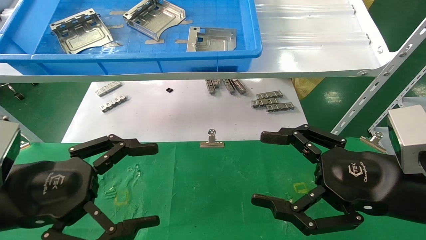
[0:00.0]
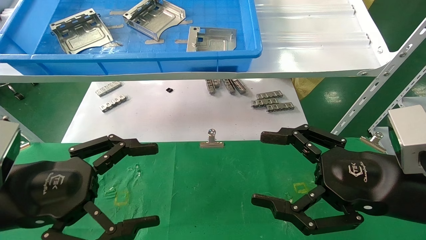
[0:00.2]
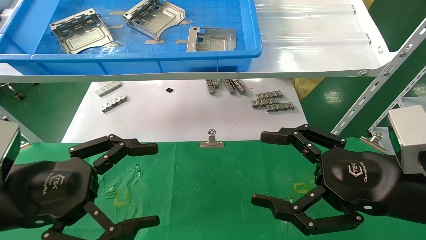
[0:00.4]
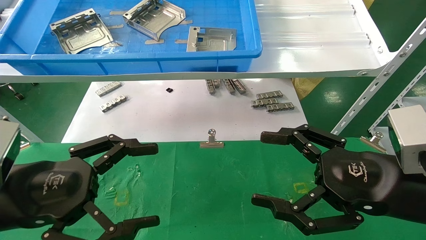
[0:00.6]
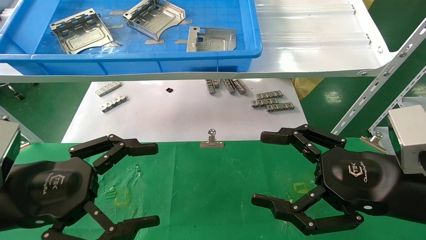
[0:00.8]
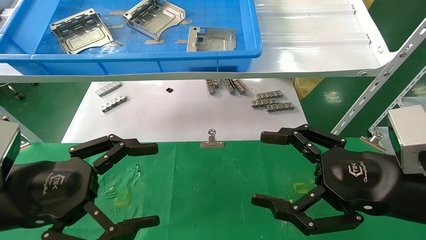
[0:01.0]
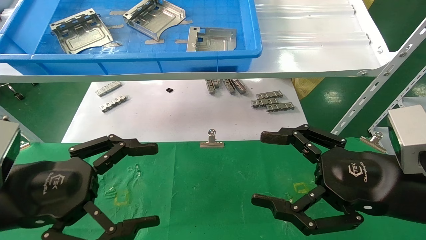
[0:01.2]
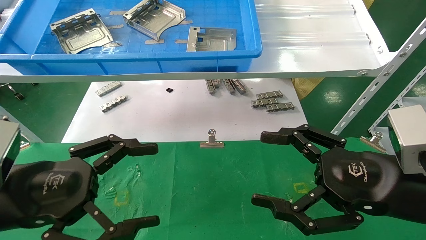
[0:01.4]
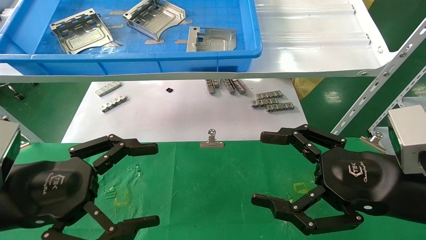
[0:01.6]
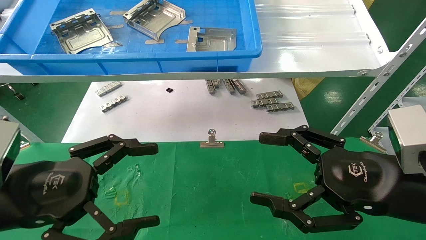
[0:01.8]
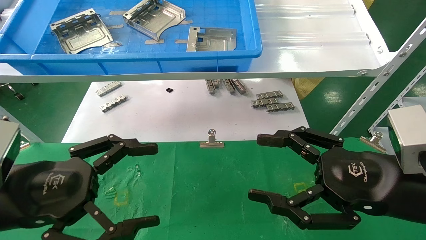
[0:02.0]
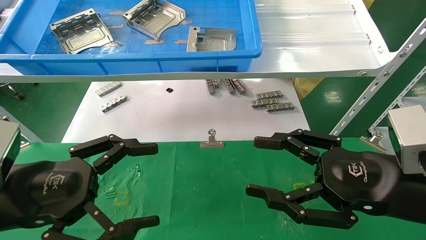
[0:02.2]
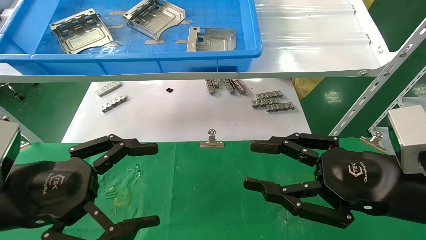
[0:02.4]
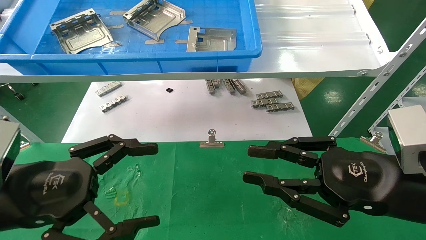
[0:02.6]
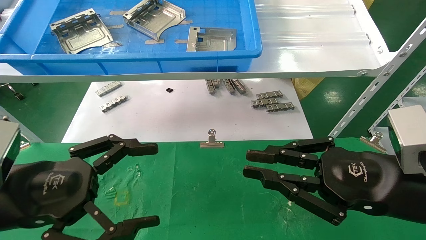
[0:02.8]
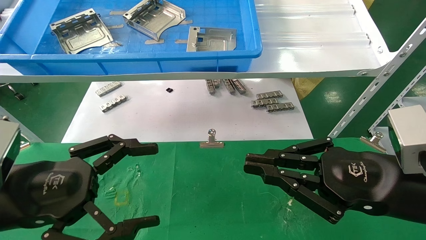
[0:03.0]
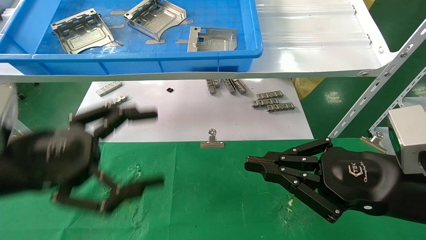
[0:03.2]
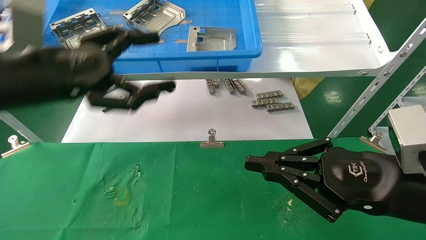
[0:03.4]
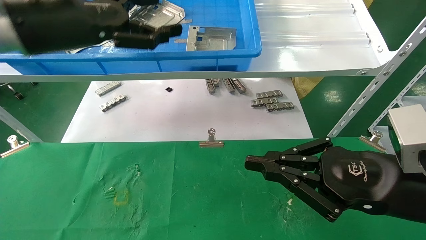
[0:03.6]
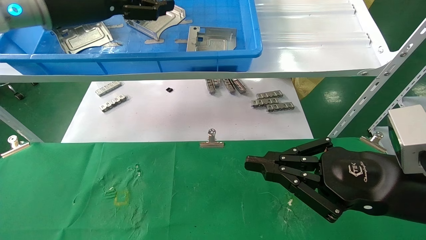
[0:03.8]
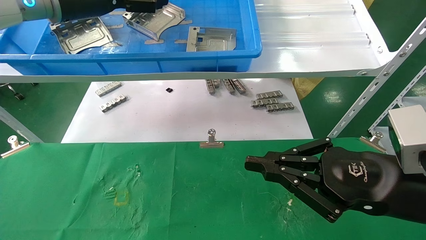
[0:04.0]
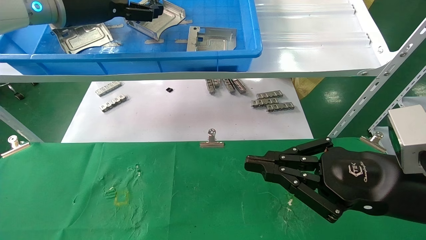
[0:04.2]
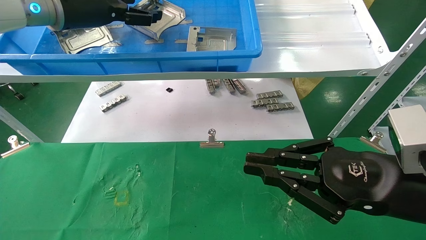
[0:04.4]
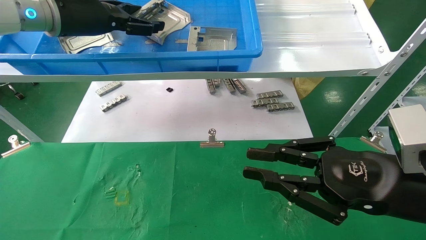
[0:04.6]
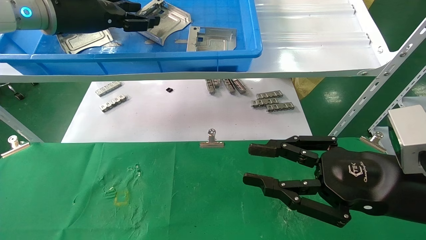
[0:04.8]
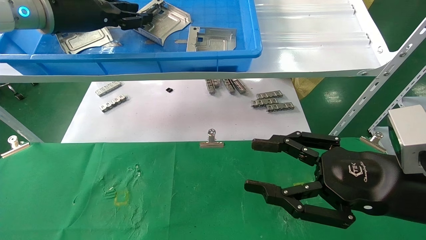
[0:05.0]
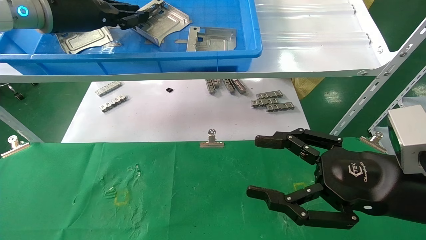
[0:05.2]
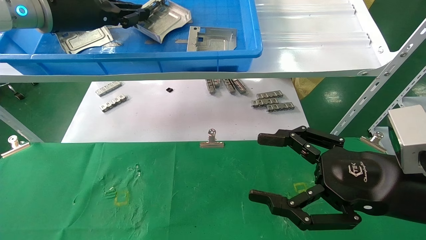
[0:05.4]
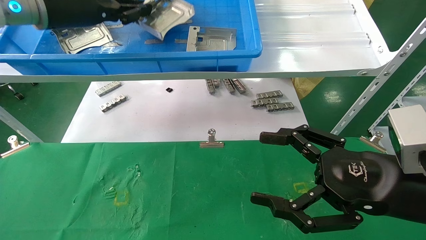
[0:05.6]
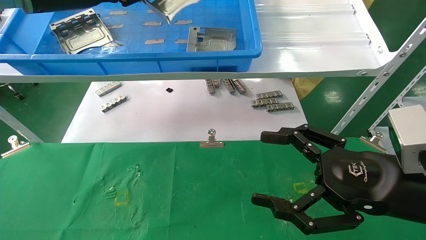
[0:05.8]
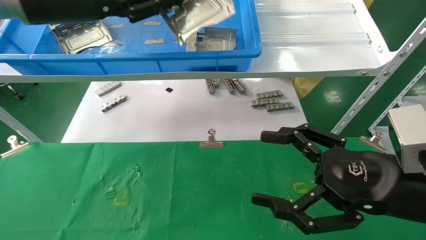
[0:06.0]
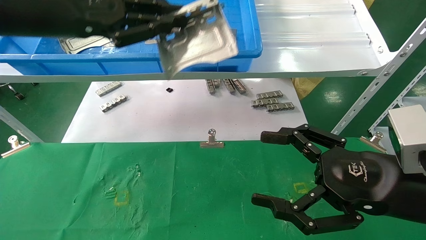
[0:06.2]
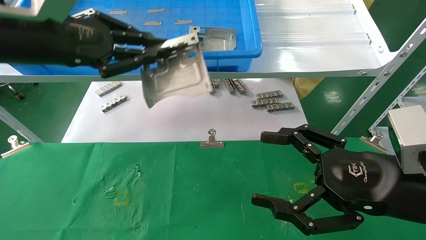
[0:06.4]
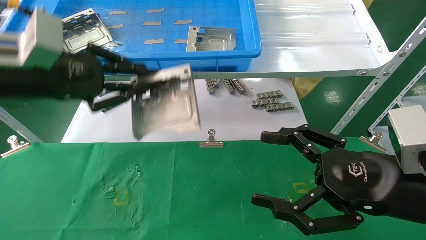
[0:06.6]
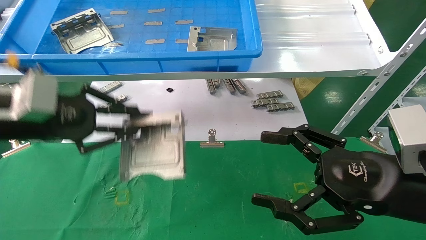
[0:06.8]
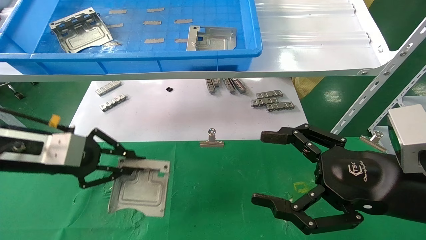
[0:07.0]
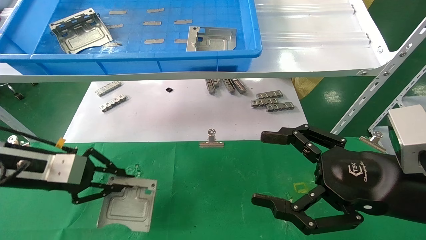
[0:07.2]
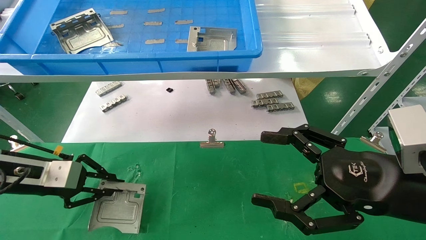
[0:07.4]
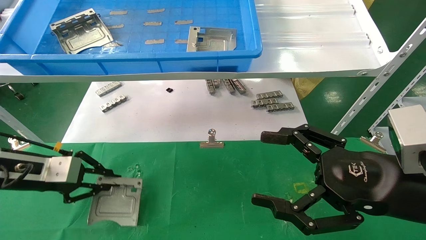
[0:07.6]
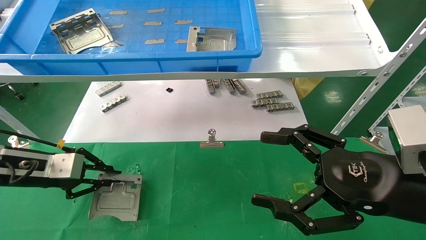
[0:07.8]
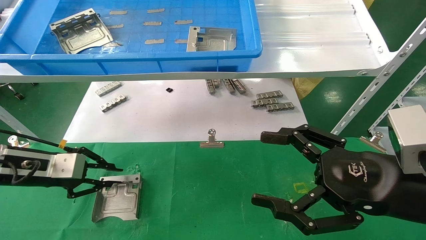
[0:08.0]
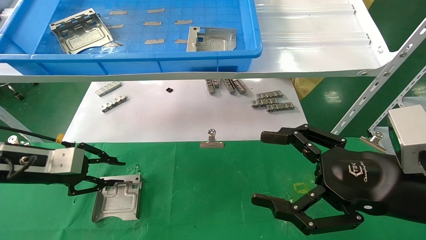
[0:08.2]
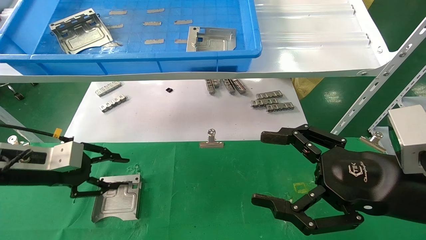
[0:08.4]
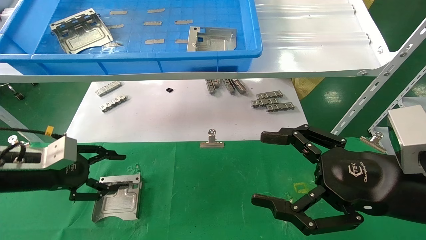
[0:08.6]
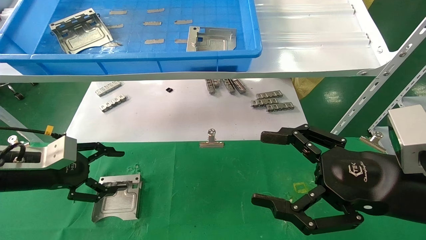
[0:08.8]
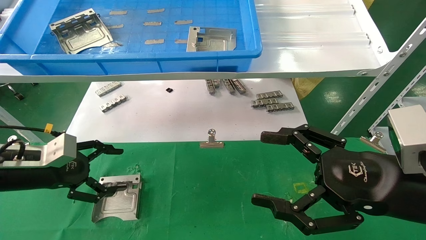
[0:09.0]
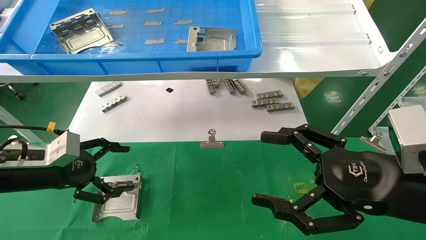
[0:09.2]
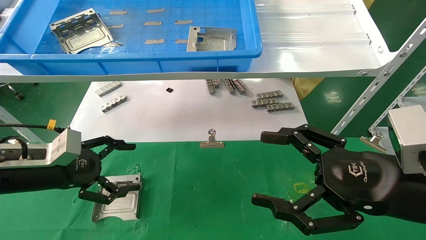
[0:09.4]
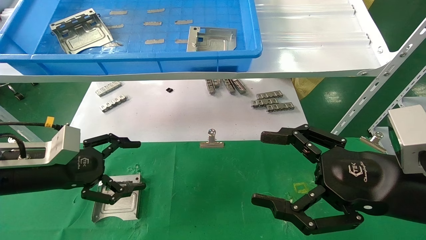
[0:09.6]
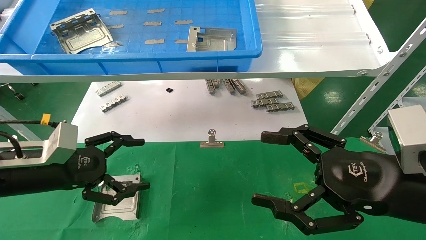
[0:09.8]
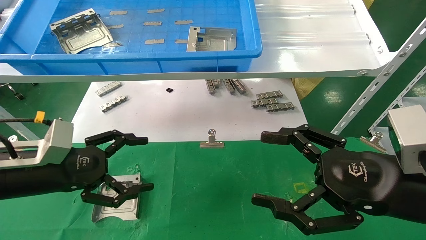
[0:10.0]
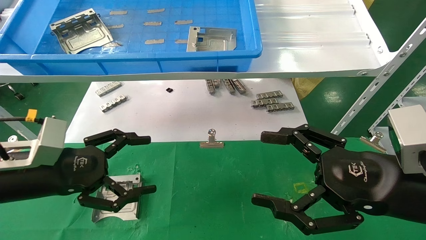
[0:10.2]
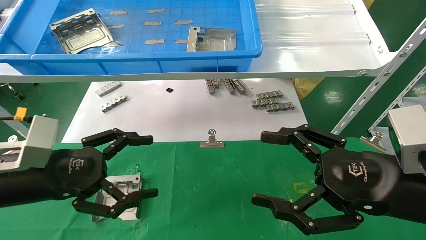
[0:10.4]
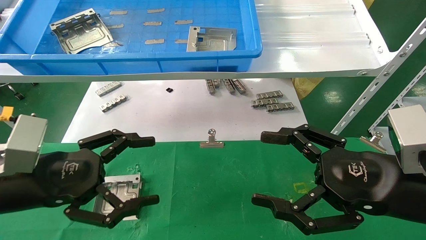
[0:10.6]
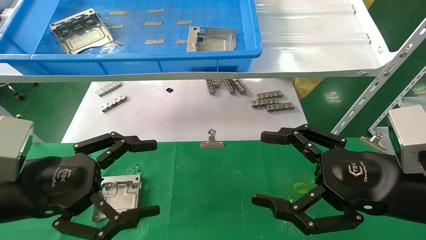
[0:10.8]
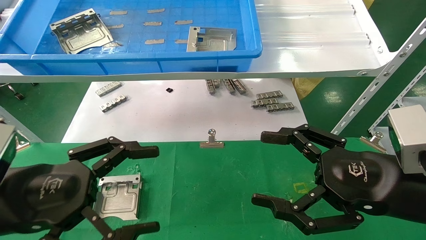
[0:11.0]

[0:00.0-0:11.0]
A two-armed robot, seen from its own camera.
Task of the whole recording: use the mechanical arm to pick up the parts and place them on the table.
Step, 0:03.4 to 0:05.4: Pick up the hard drive bracket from the feeding area.
Step, 0:05.6 to 0:08.4: Place the hard drive bracket into the box.
0:00.0 to 0:01.6: Neither gripper changes place.
0:01.6 to 0:03.2: The left gripper shifts about 5 cm upward; the right gripper closes its fingers.
0:03.2 to 0:04.8: The left gripper moves forward and upward, roughly 25 cm.
0:04.8 to 0:06.2: The right gripper opens up; the left gripper shifts approximately 10 cm backward, and closes.
0:06.2 to 0:07.8: The left gripper shifts about 25 cm downward and to the left.
0:07.8 to 0:09.4: The left gripper opens.
0:09.4 to 0:11.0: The left gripper shifts approximately 15 cm backward and to the right.

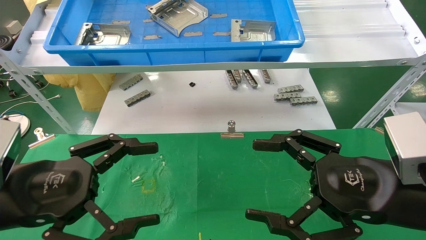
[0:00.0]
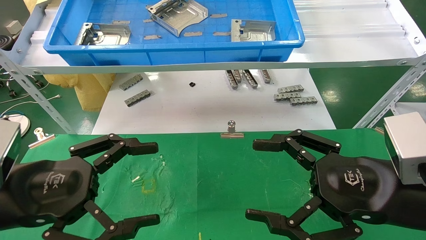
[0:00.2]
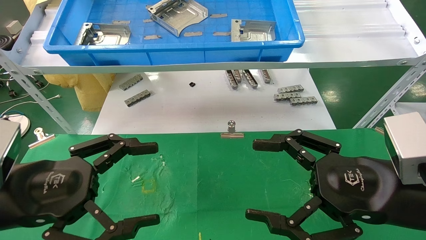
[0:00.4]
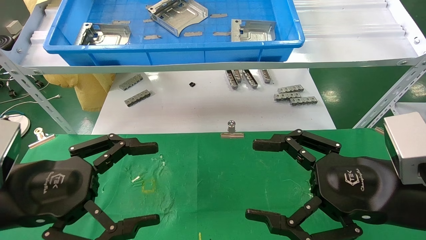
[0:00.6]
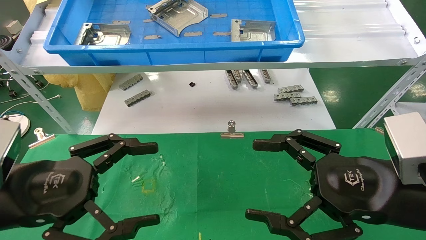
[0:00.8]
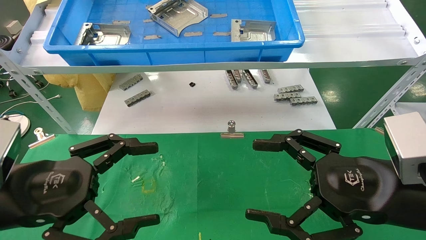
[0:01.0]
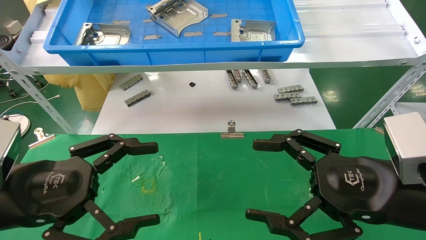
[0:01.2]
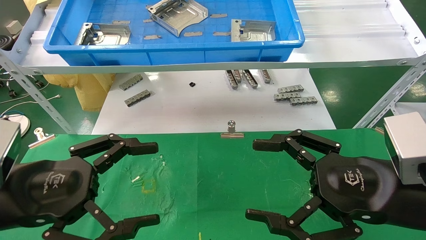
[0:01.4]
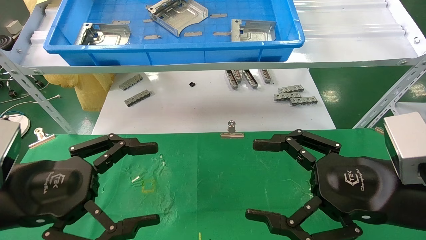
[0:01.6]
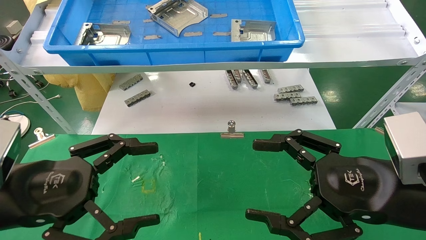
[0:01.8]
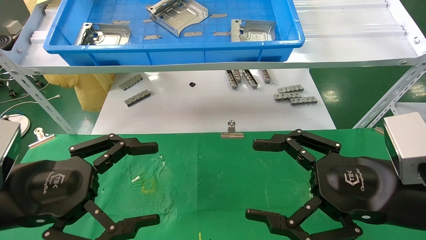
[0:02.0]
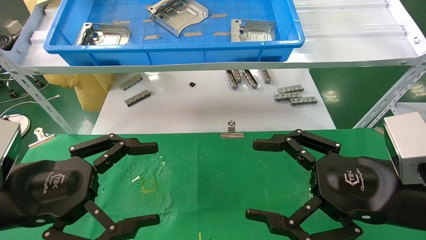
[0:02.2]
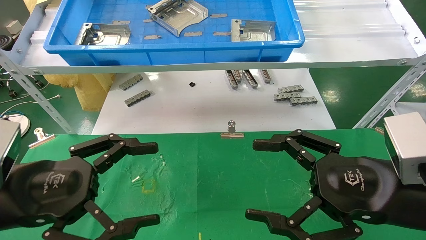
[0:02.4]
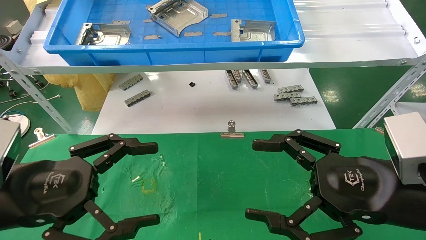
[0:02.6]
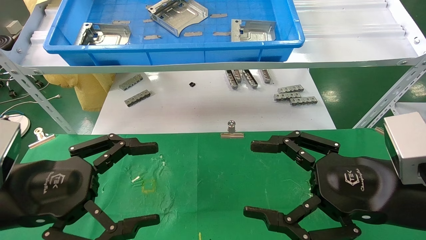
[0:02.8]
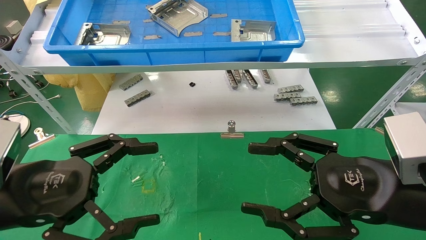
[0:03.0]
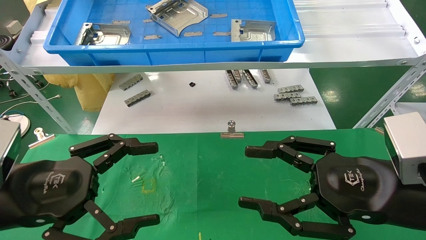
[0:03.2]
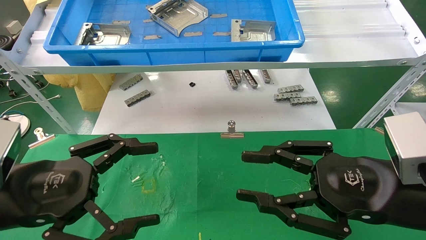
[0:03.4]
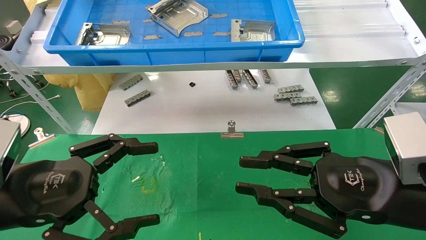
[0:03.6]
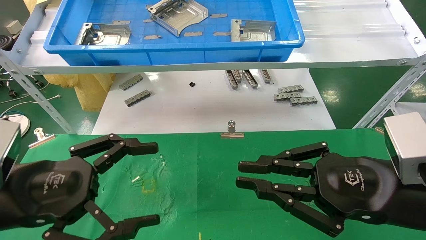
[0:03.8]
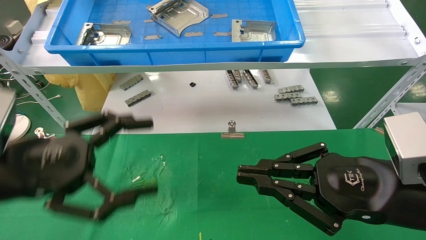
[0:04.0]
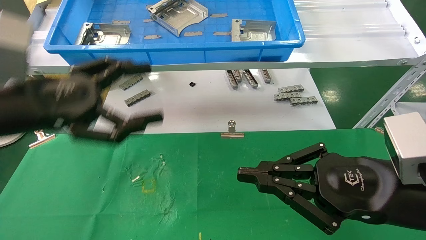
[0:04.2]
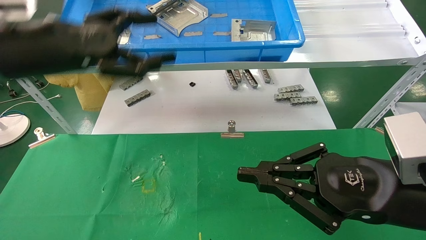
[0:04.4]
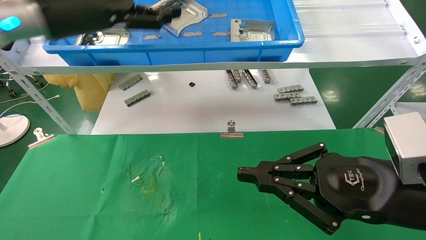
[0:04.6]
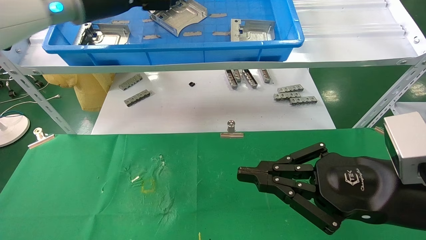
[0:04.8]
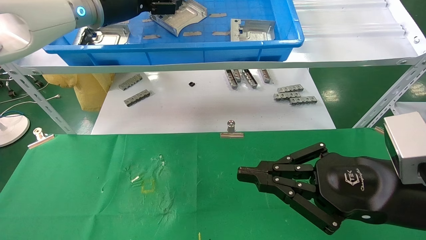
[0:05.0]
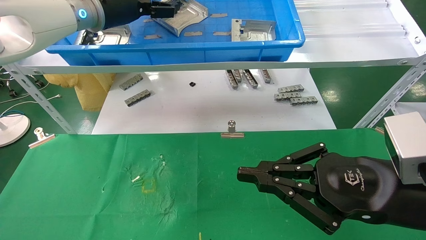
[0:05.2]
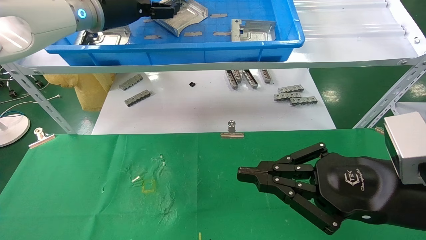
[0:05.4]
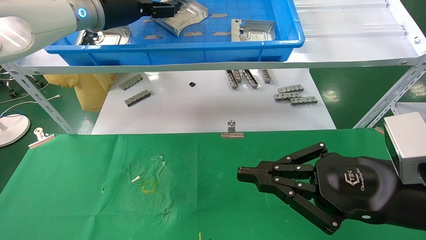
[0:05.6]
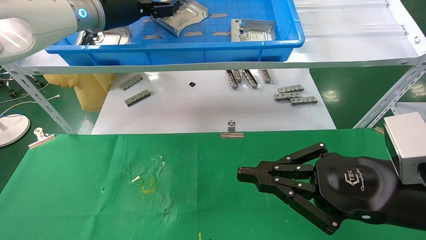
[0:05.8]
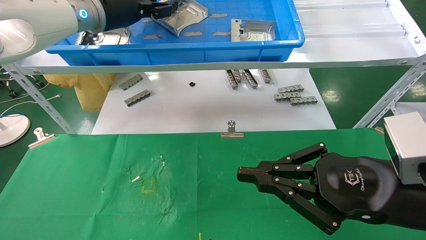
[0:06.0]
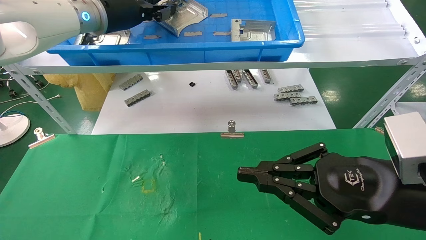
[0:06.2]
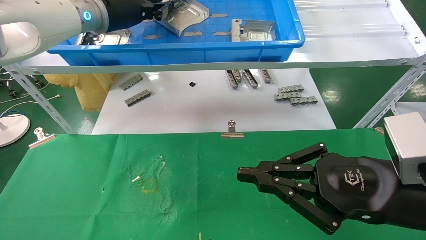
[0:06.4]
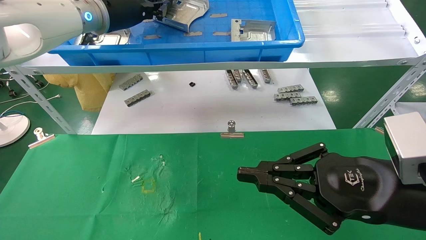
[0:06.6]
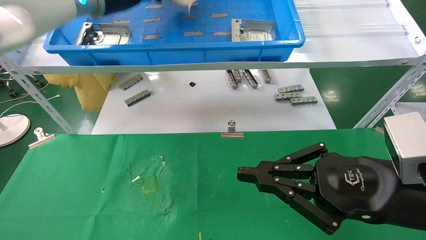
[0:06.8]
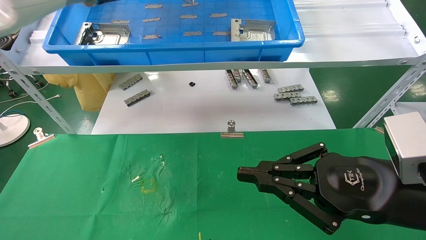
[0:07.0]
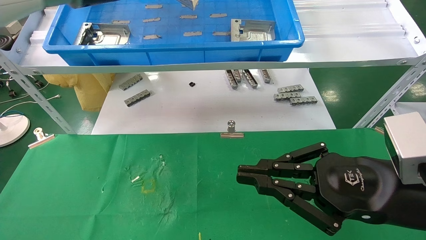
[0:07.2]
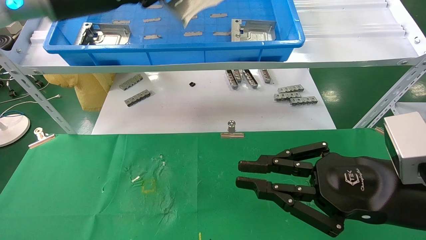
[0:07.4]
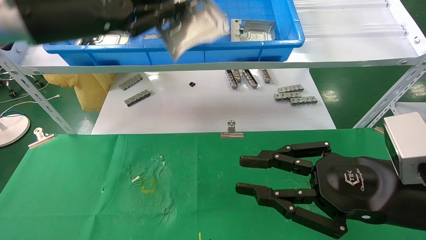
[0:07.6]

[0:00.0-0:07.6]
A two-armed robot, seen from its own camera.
Task of the whole recording: use the mechanical arm to pick up the parts and place them on the table.
Step, 0:04.2 to 0:06.4: Pick up the hard drive bracket from the feeding area.
0:00.0 to 0:03.0: Both grippers stay put.
0:03.0 to 0:04.6: The left gripper goes roughly 30 cm upward and forward, while the right gripper closes its fingers.
0:04.6 to 0:06.0: The left gripper shifts some 5 cm forward, and closes.
0:06.0 to 0:07.6: The left gripper moves backward, approximately 10 cm, and closes.
